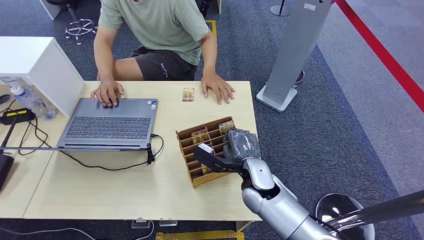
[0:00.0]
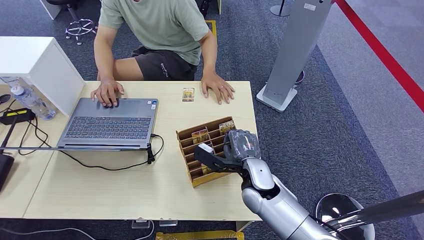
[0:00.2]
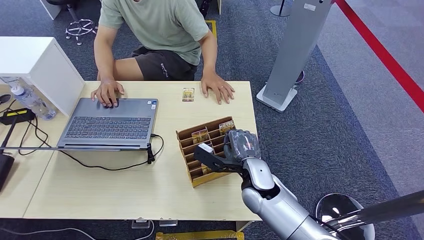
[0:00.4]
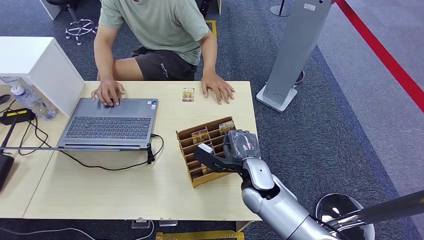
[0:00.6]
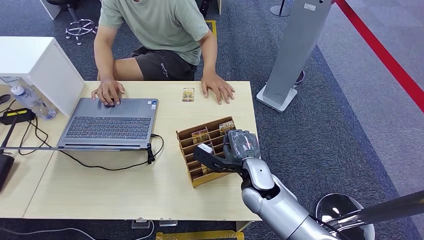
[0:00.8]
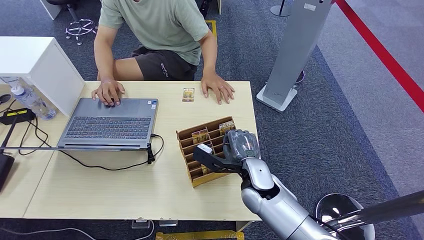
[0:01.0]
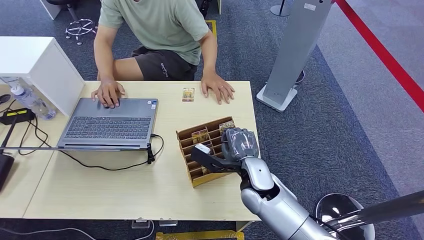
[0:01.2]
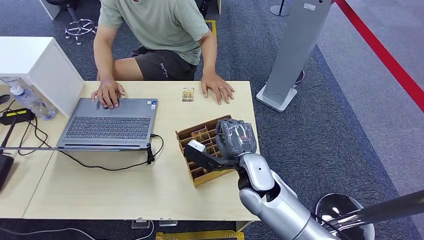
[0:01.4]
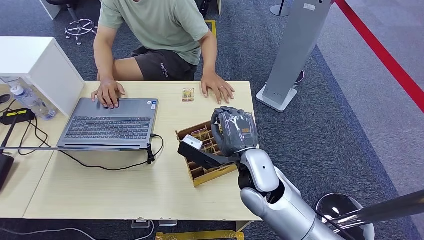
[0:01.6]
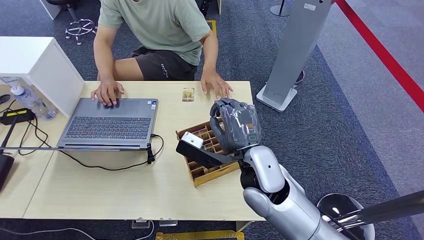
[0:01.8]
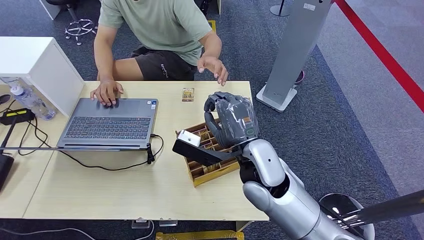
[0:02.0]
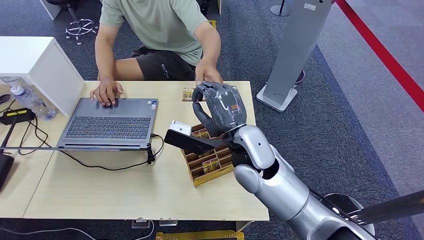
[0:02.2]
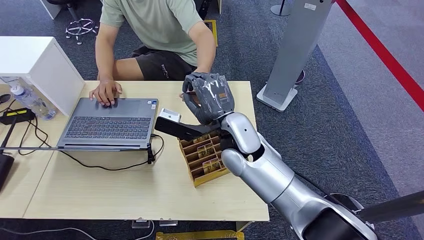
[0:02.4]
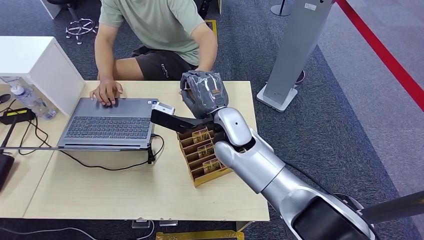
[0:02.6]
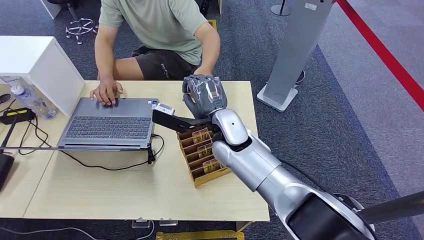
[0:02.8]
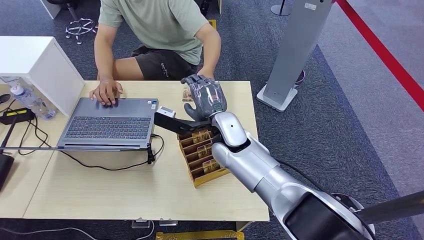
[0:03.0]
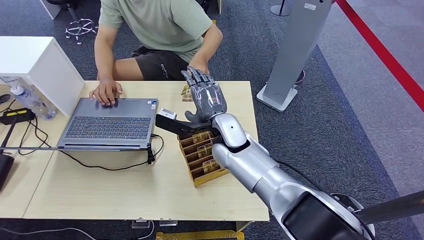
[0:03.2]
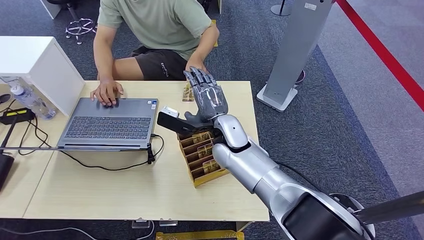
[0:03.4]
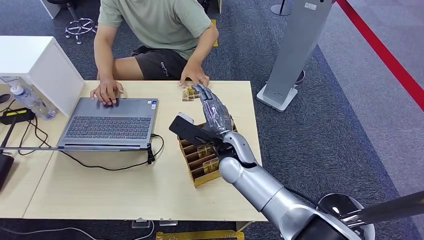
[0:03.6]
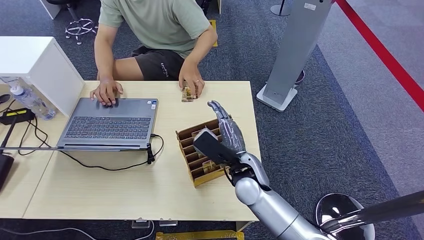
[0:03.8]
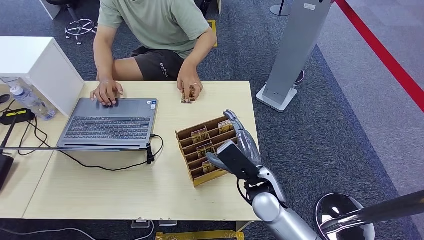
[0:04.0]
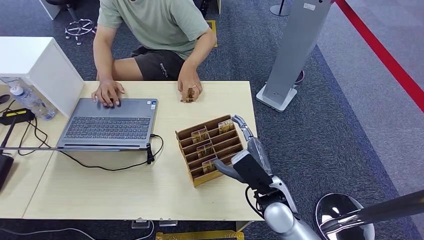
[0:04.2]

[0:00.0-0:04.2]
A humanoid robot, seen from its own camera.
Task of the whole recording: Pick up the card and hand it over to the target person.
Step, 0:00.0 to 0:02.0: Pick up the key card from the card box.
Step, 0:02.2 to 0:04.2: Hand the key card to the target.
0:00.0 to 0:01.4: The right hand shifts some 15 cm upward.
0:01.4 to 0:02.8: The right hand moves forward and to the left, roughly 15 cm.
0:02.8 to 0:04.2: The right hand goes roughly 20 cm backward, to the right and downward.
